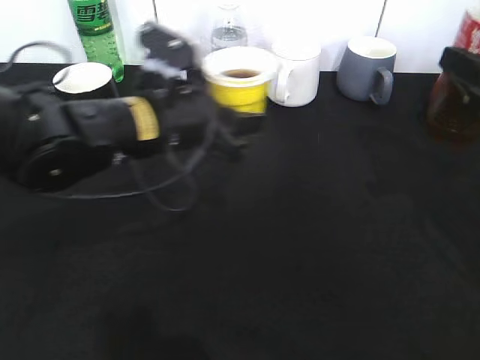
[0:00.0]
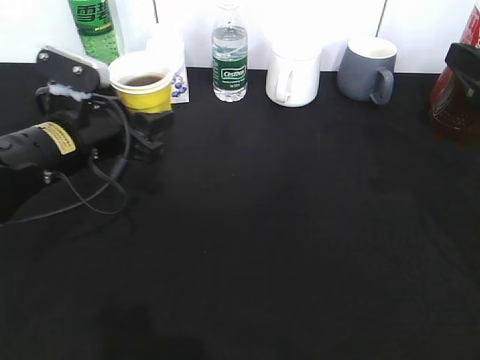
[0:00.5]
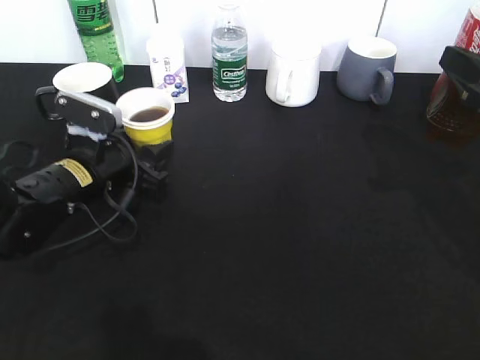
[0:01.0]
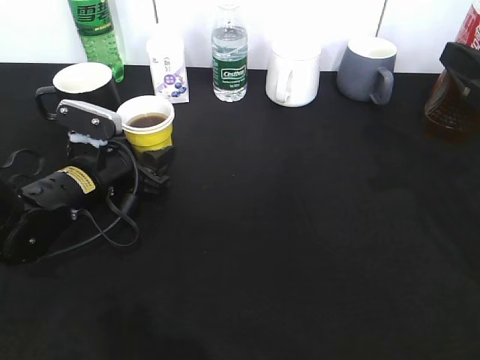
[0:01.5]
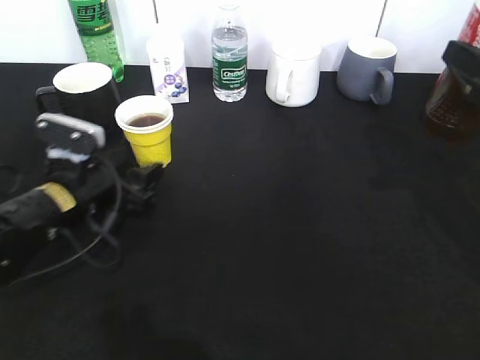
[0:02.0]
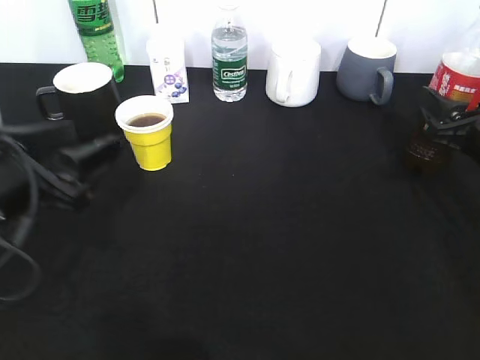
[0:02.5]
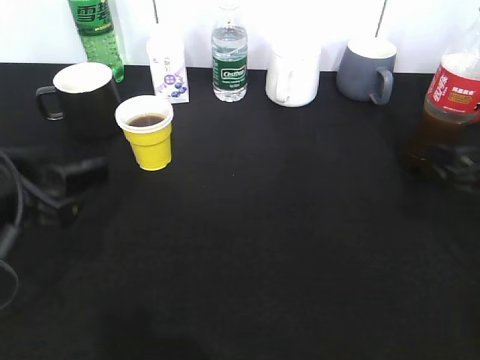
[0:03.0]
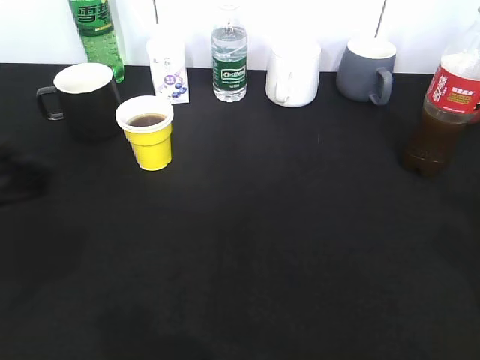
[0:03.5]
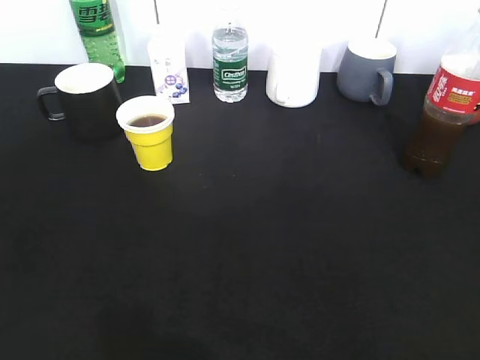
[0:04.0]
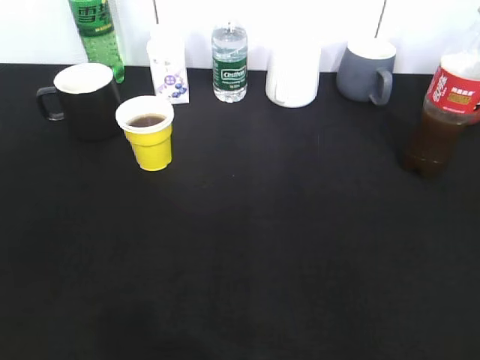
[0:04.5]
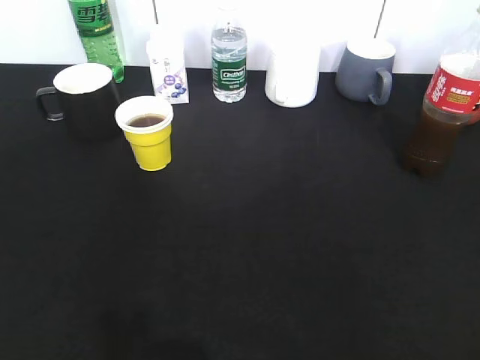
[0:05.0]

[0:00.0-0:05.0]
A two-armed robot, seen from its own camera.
Step, 0:00.0 to 0:01.5: Place the yellow paper cup on the table with left gripper.
0:00.0 to 0:02.5: The left gripper goes roughly 15 cm to the left and backward, and opens up, while the right gripper goes approximately 10 cm downward and forward.
0:02.5 to 0:05.0: The right gripper moves backward and upward, approximately 35 cm, and opens, while the left gripper heads backward, to the left and upward, covering approximately 25 cm.
